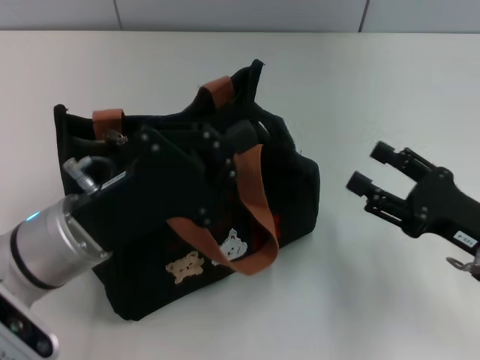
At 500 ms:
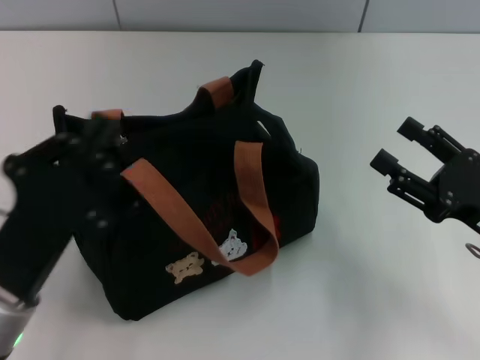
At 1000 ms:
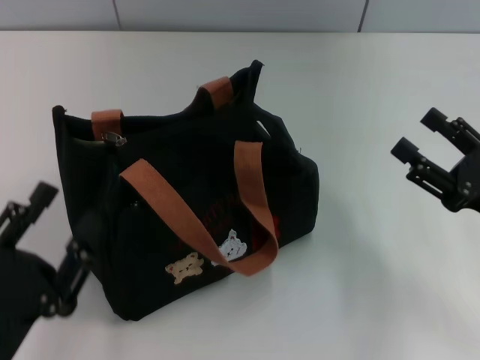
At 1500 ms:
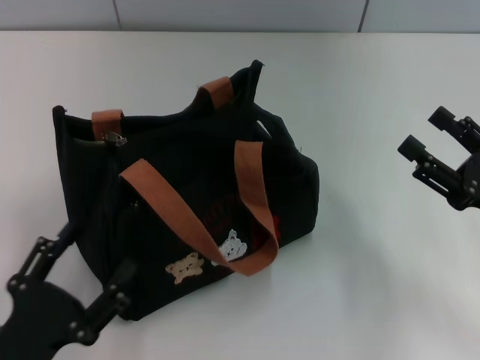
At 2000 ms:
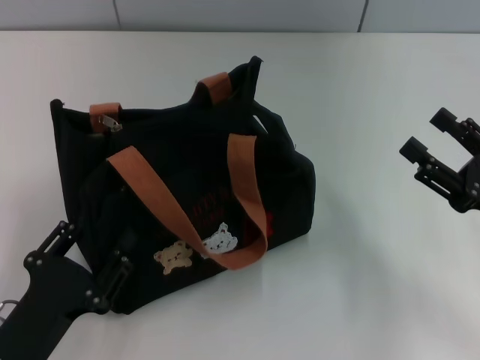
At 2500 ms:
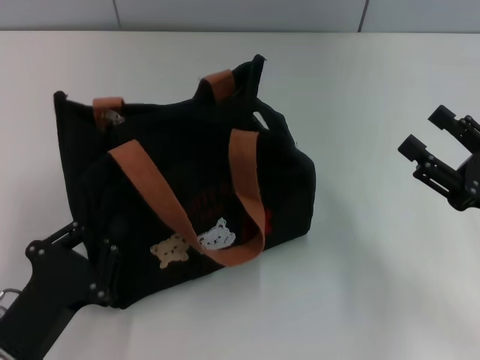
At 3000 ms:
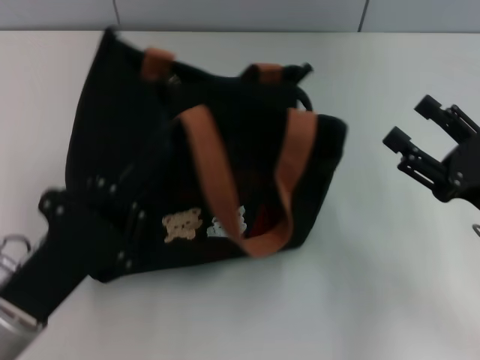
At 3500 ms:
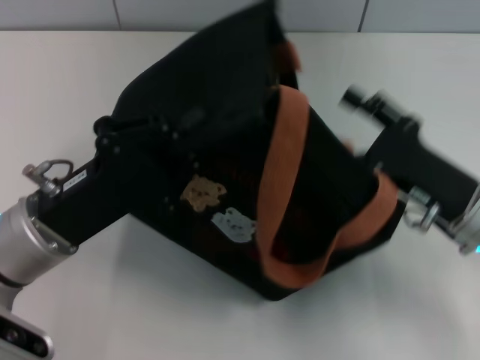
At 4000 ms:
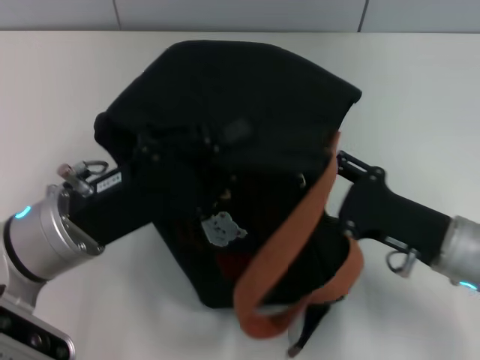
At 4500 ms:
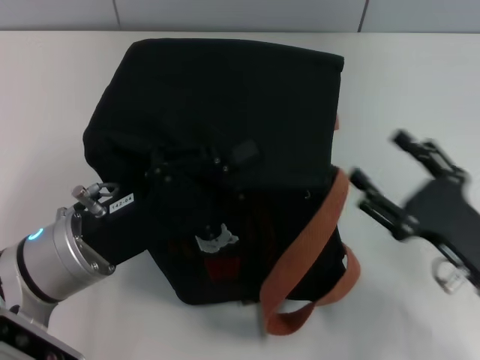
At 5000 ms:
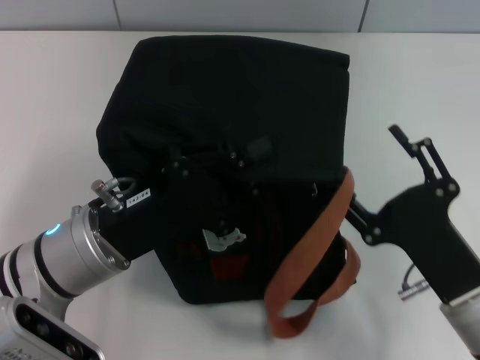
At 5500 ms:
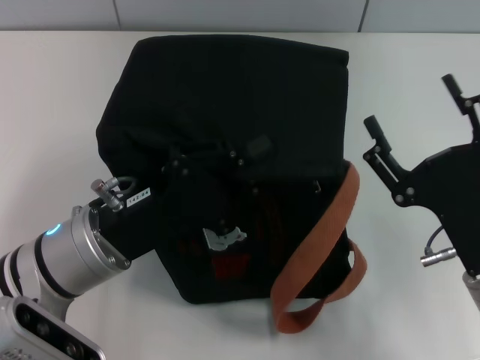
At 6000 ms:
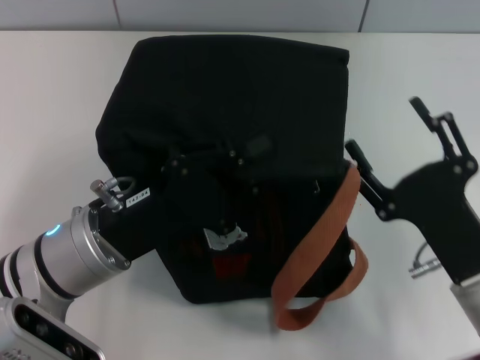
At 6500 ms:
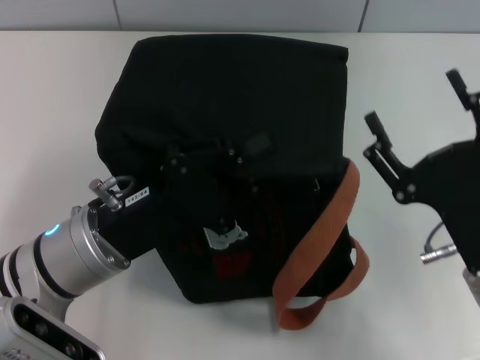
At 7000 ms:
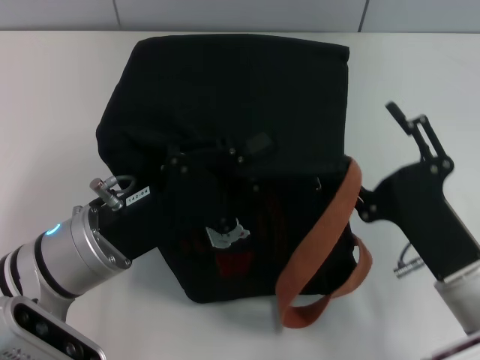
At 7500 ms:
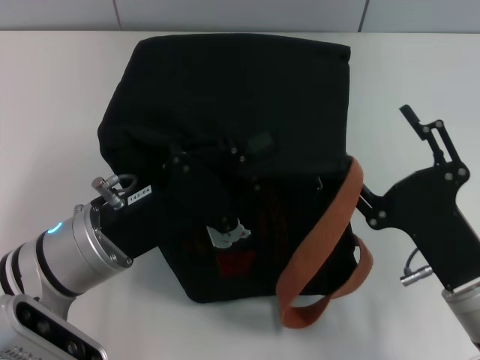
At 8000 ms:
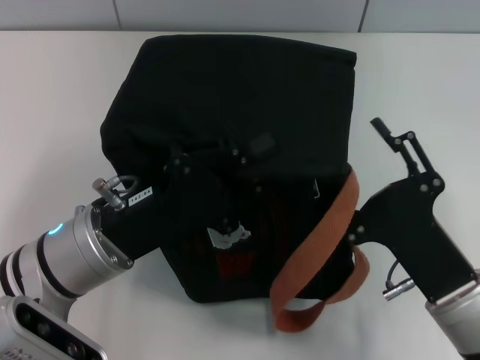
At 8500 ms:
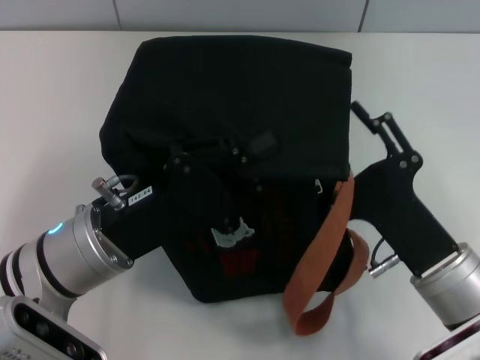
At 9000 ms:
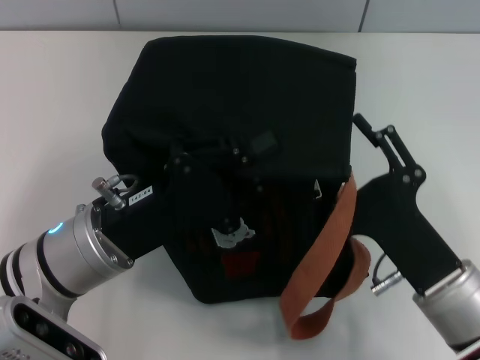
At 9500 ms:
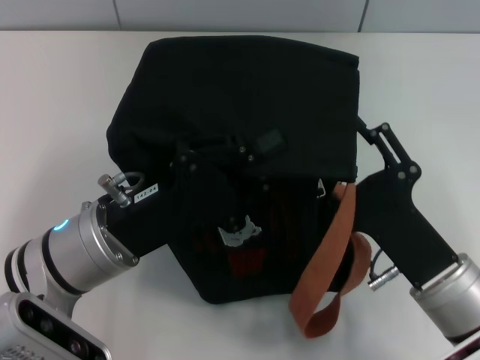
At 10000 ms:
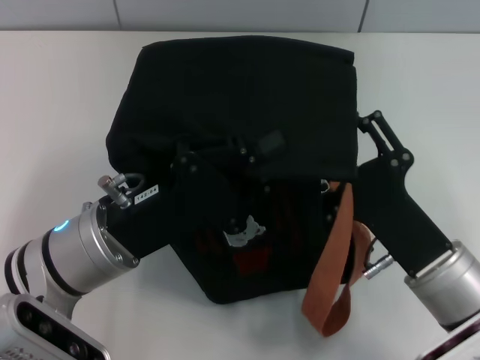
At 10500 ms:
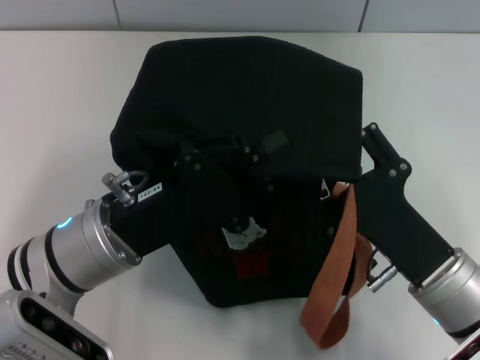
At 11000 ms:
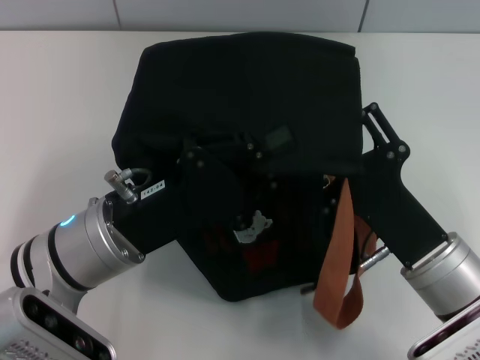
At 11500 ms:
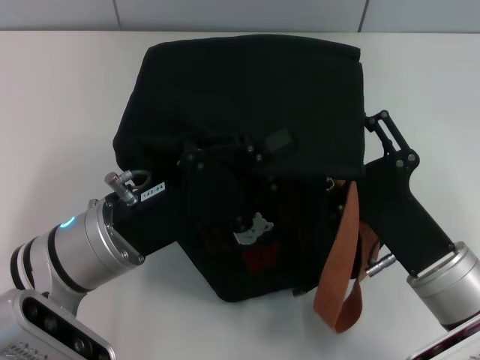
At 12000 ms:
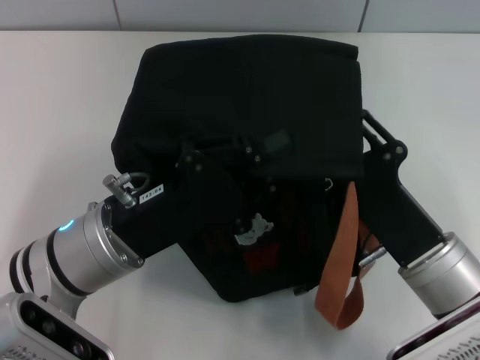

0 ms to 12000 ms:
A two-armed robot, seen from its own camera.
0 ms to 2000 ms: The left gripper is displaced backward, downward and to the left by roughly 15 cm, and opens.
2000 ms to 4000 ms: The left gripper moves forward and upward, approximately 15 cm, and closes up. The right gripper moves to the left, some 10 cm.
4000 ms to 6000 ms: The right gripper goes some 5 cm backward.
6000 ms to 10000 ms: The grippers make only small movements.
10000 ms to 12000 ms: The grippers stay close to where they were, moving slightly.

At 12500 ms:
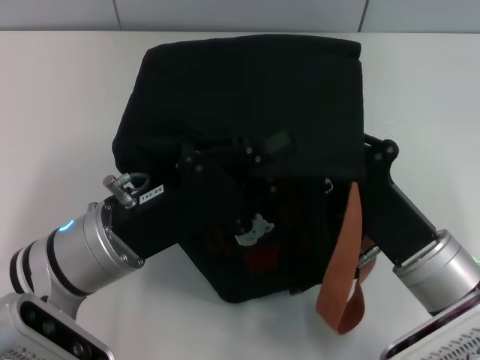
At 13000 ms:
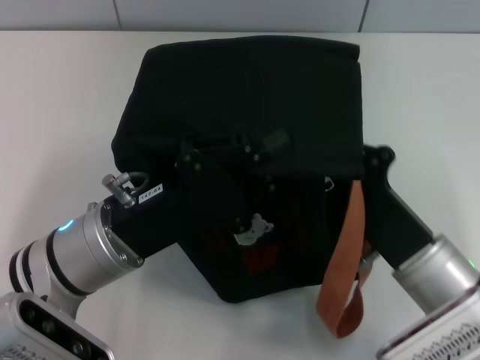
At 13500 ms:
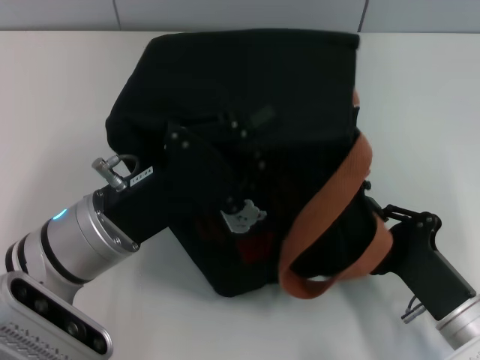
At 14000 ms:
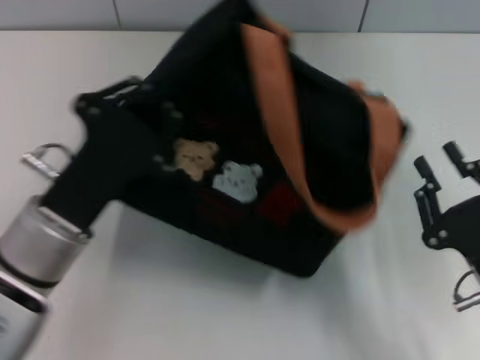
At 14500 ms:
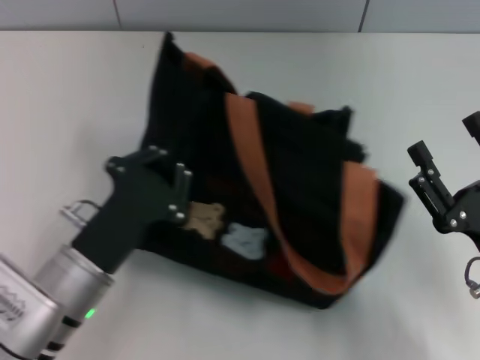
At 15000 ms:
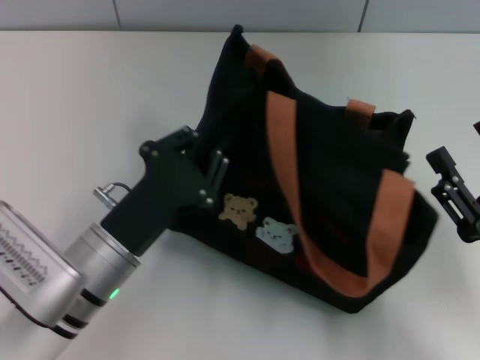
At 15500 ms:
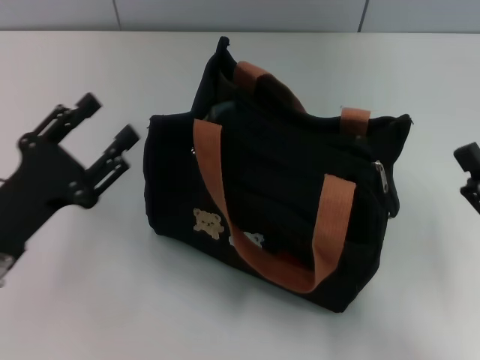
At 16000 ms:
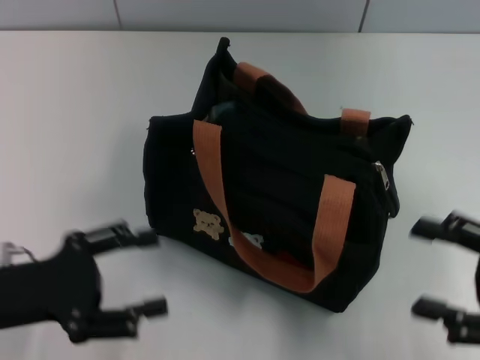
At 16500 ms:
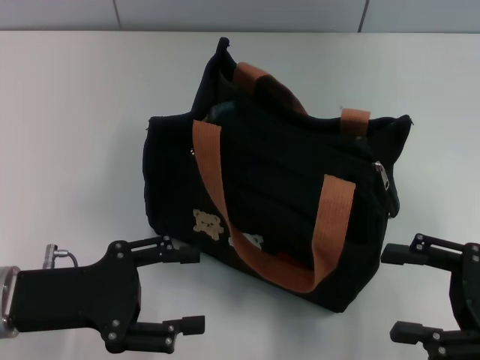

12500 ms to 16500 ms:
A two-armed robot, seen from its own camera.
Step, 14000 ms to 15000 ms: Grab the bag with your left hand.
12500 ms to 14500 ms: The left gripper moves some 5 cm; the right gripper is displaced to the right by approximately 10 cm, and opens up.
14500 ms to 16500 ms: The left gripper moves to the left, approximately 10 cm, and opens its fingers. The right gripper is displaced to the right by roughly 5 cm.

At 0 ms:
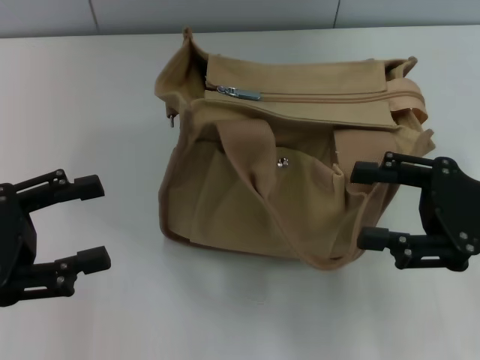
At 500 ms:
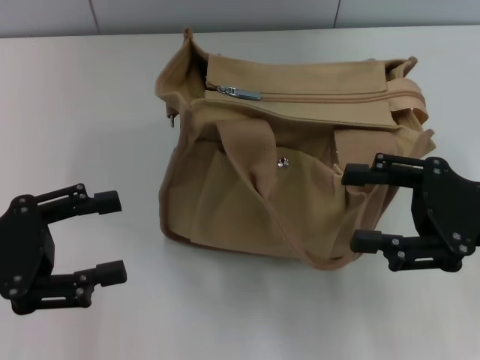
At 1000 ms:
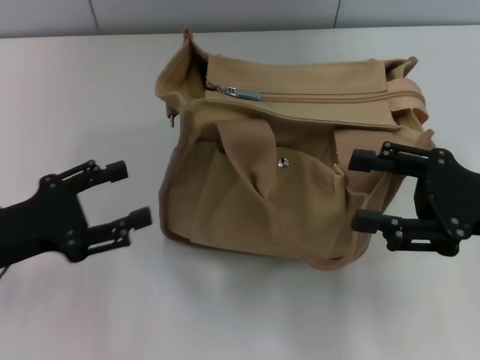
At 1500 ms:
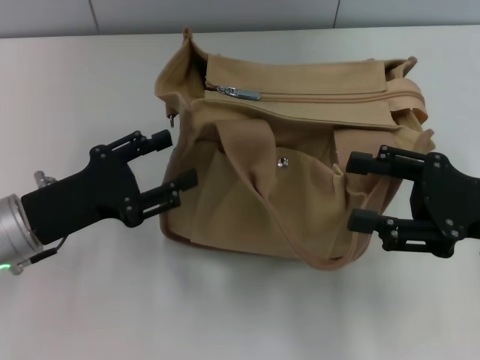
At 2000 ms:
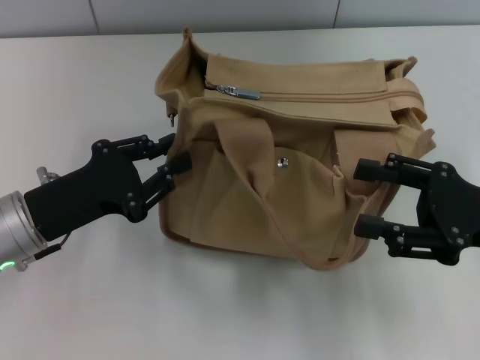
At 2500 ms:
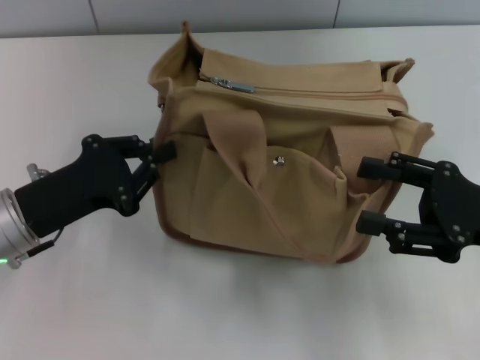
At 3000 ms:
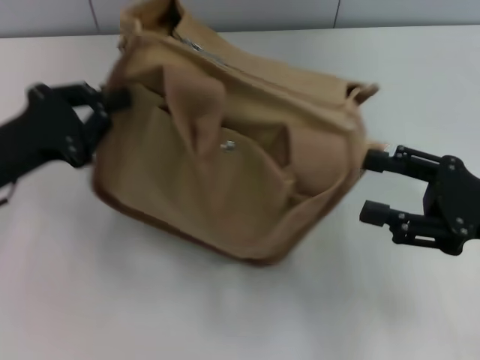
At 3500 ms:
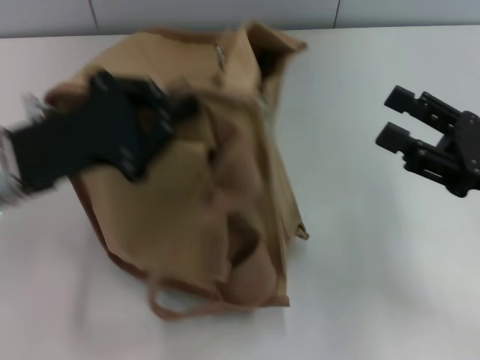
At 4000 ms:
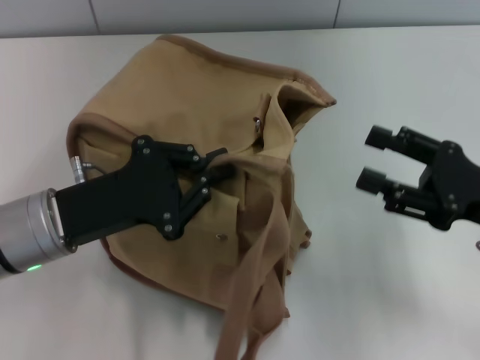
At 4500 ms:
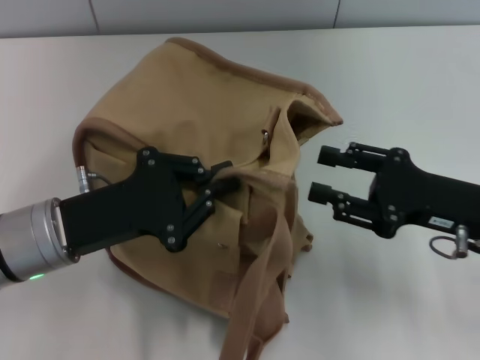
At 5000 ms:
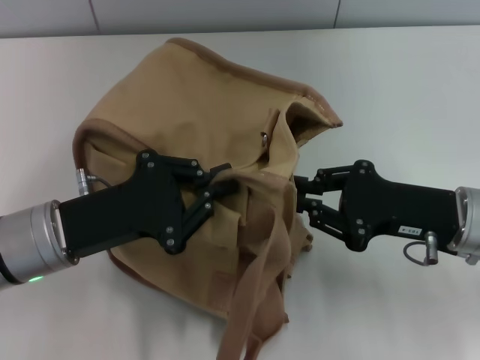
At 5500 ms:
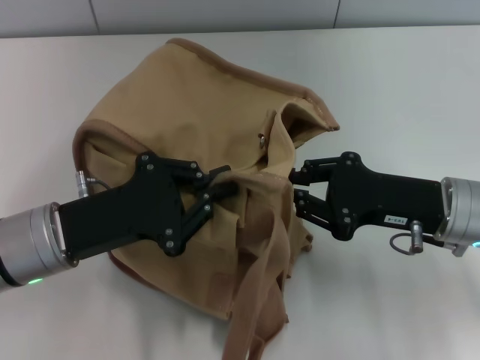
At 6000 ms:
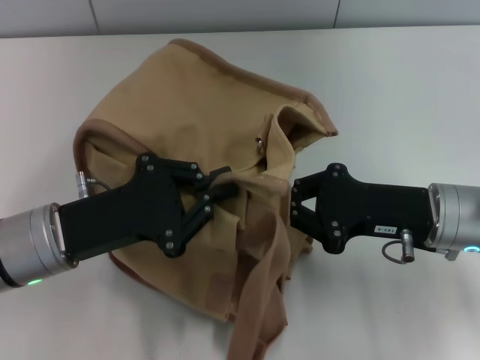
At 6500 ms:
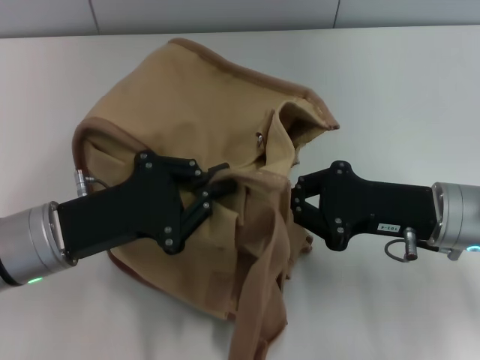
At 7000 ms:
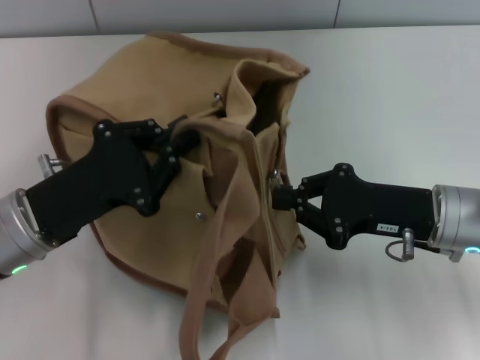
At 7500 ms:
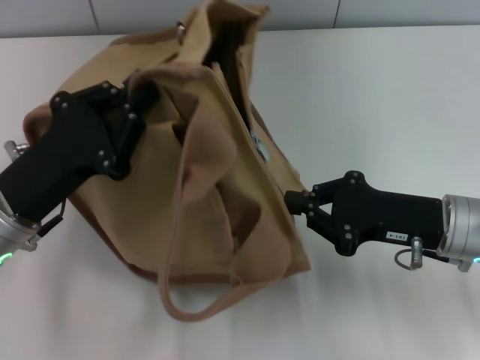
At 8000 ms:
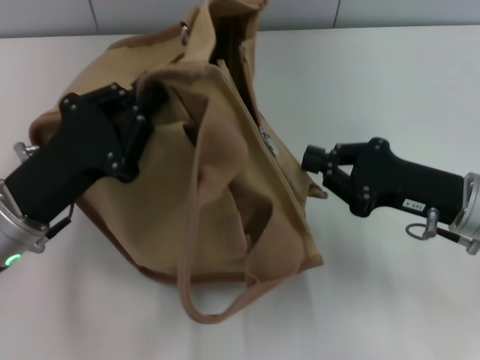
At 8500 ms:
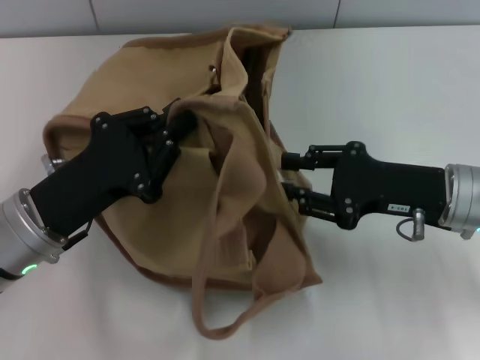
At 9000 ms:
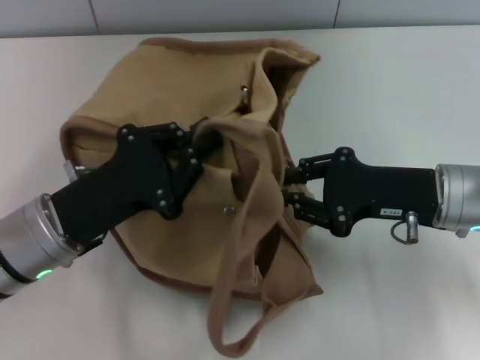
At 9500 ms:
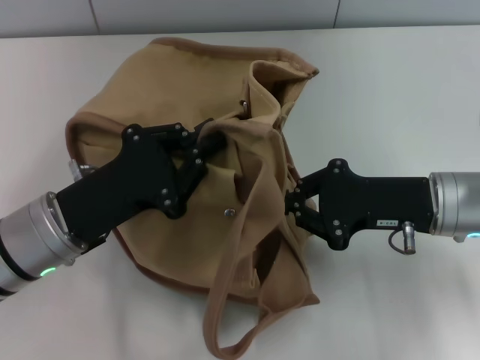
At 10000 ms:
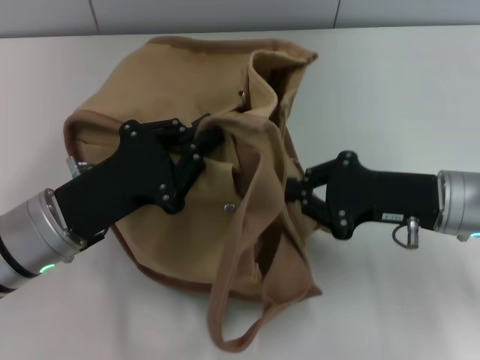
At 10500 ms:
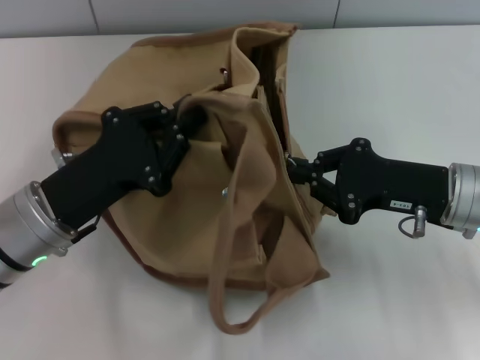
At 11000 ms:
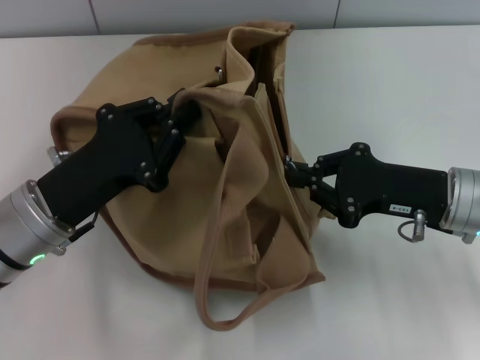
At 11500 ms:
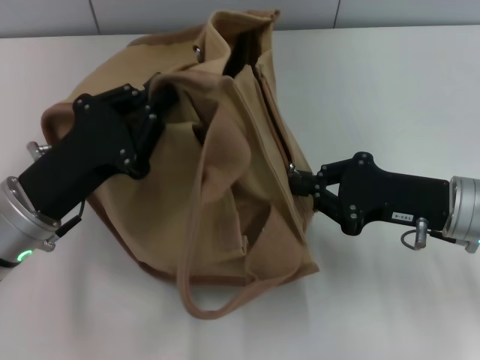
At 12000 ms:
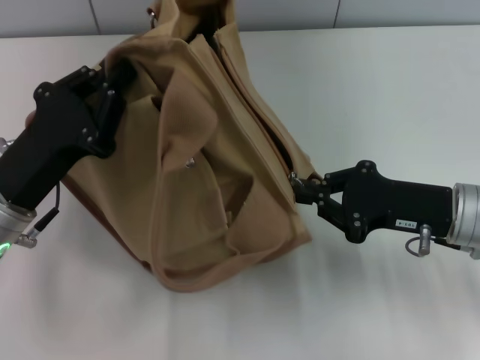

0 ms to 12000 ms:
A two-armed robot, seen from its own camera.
0 ms to 2000 ms: The left gripper shifts approximately 10 cm to the right, downward and forward, and closes its fingers.
2000 ms to 4000 ms: The left gripper closes its fingers.
4000 ms to 6000 ms: The right gripper heads to the left, covering approximately 5 cm, and closes its fingers.
8000 ms to 10000 ms: The right gripper opens, then closes once more.
